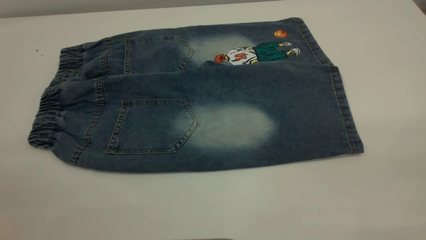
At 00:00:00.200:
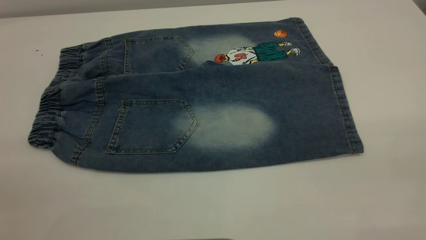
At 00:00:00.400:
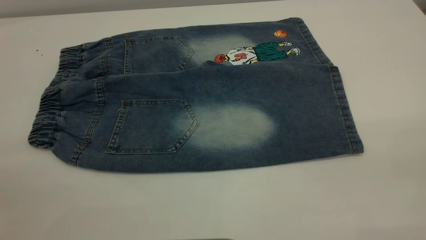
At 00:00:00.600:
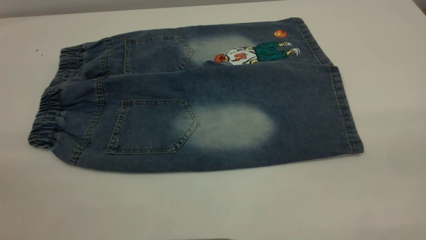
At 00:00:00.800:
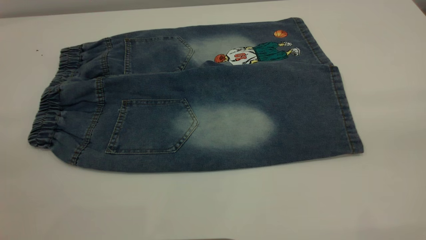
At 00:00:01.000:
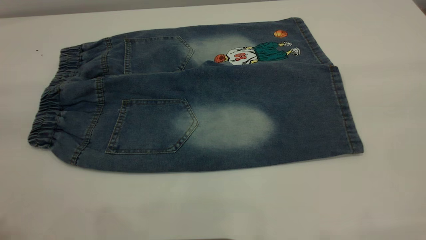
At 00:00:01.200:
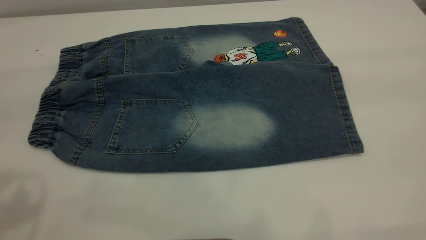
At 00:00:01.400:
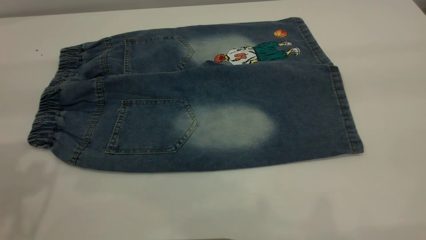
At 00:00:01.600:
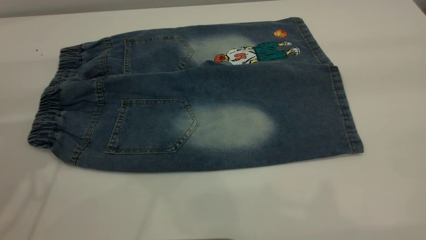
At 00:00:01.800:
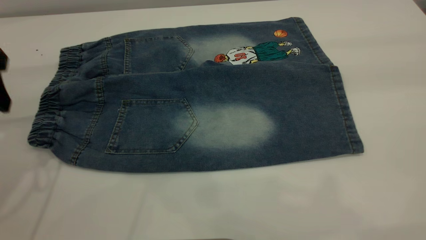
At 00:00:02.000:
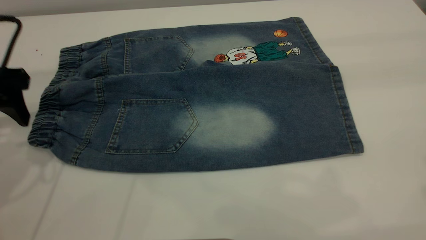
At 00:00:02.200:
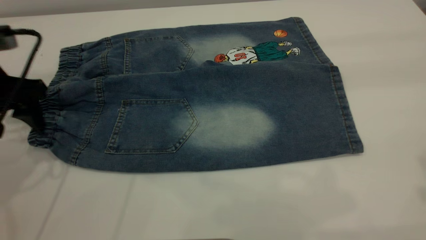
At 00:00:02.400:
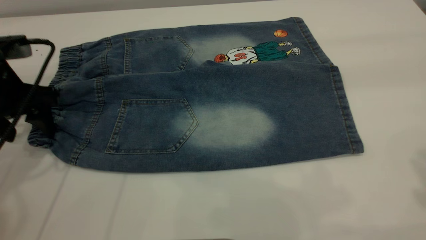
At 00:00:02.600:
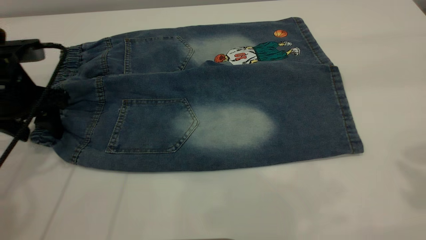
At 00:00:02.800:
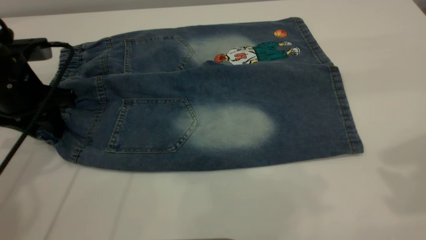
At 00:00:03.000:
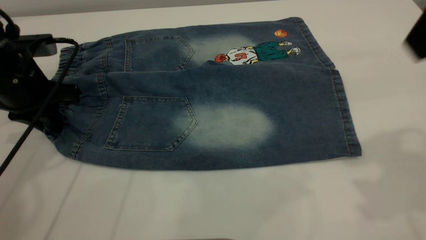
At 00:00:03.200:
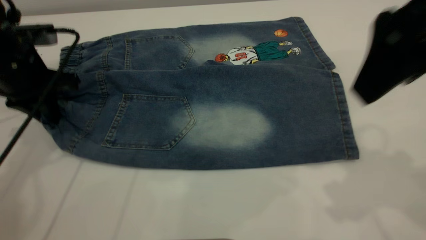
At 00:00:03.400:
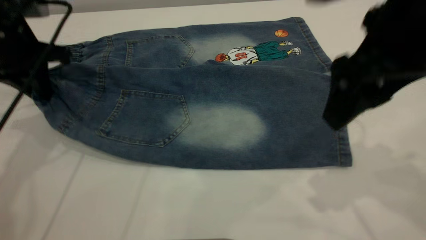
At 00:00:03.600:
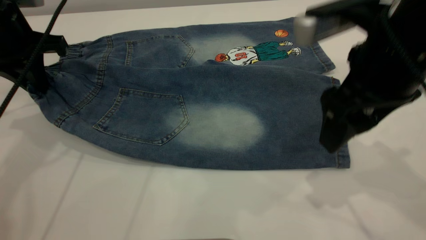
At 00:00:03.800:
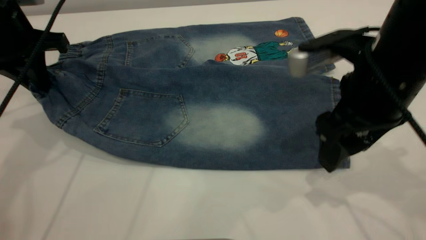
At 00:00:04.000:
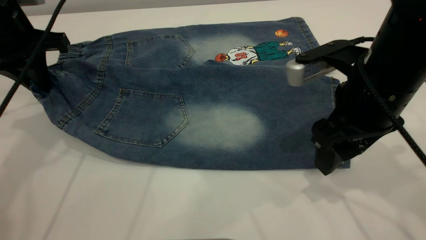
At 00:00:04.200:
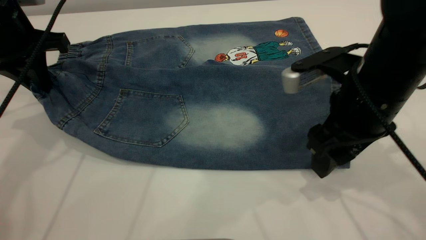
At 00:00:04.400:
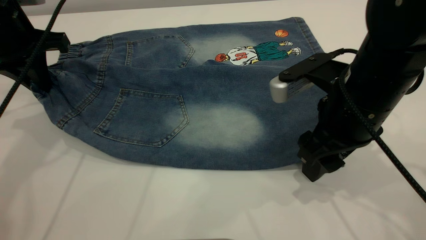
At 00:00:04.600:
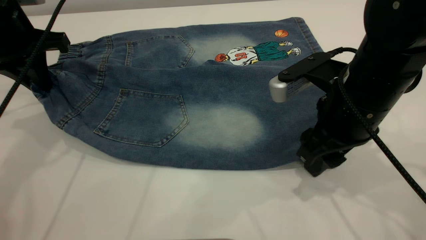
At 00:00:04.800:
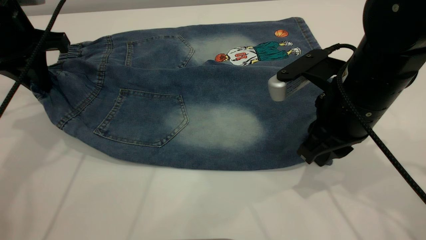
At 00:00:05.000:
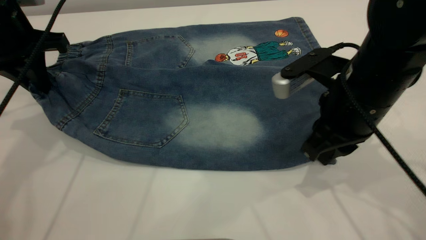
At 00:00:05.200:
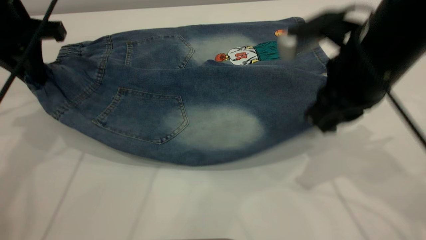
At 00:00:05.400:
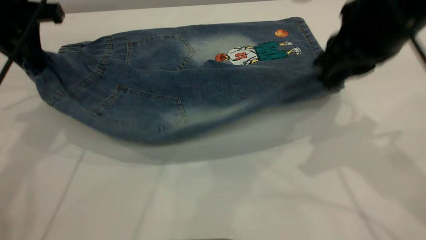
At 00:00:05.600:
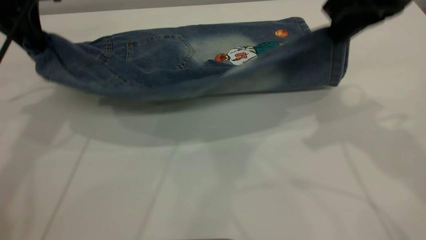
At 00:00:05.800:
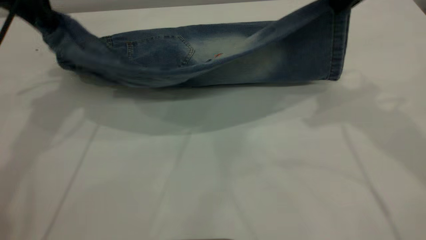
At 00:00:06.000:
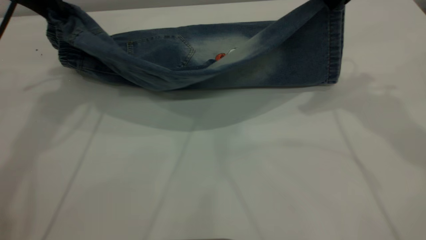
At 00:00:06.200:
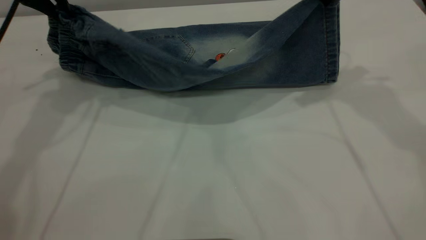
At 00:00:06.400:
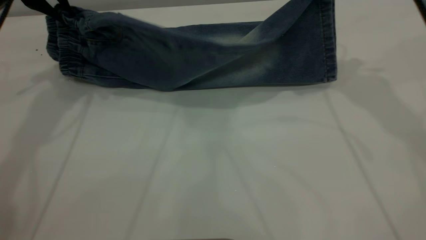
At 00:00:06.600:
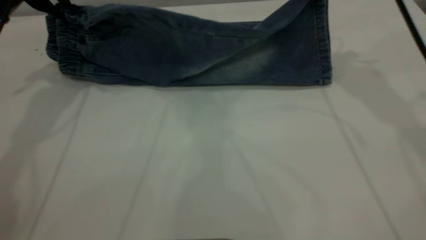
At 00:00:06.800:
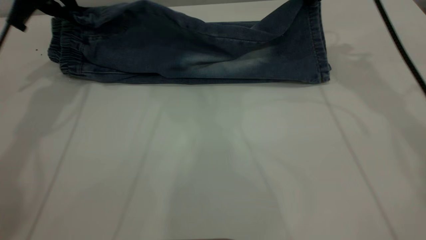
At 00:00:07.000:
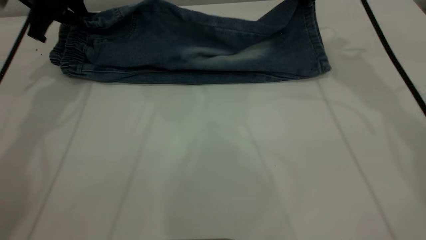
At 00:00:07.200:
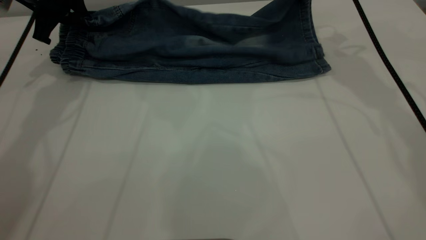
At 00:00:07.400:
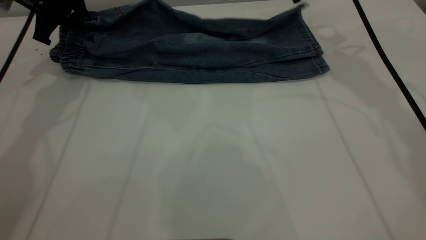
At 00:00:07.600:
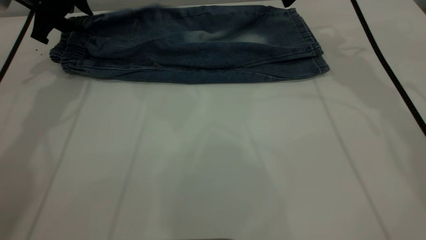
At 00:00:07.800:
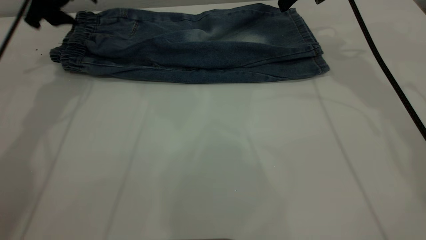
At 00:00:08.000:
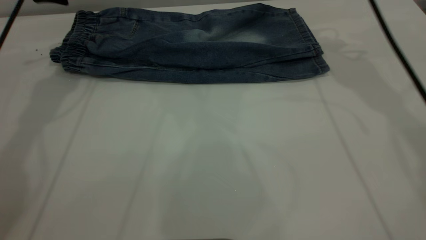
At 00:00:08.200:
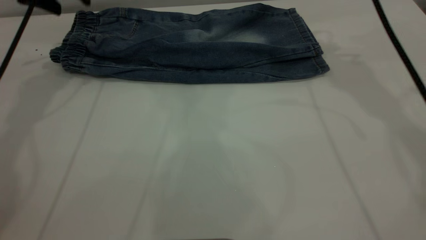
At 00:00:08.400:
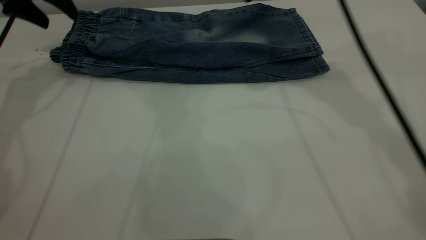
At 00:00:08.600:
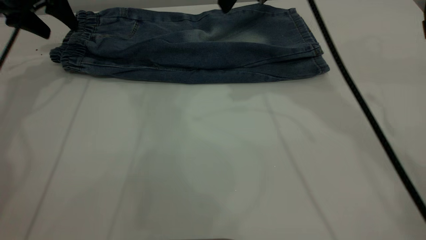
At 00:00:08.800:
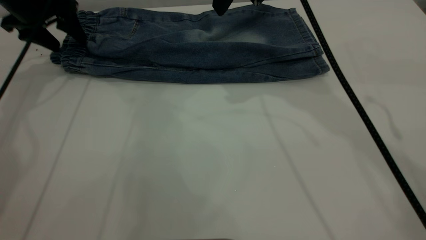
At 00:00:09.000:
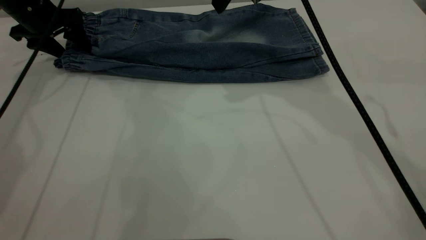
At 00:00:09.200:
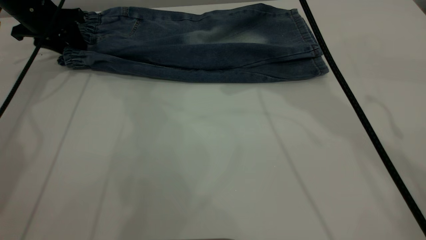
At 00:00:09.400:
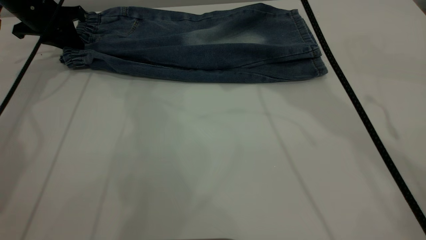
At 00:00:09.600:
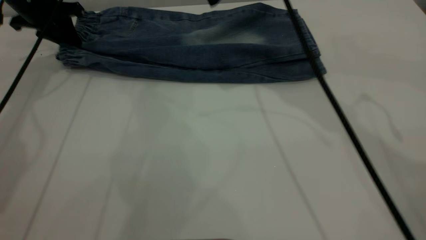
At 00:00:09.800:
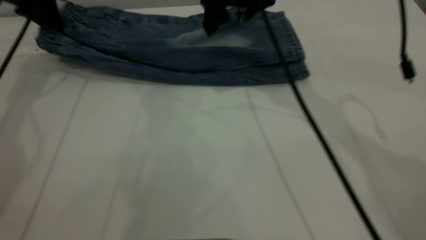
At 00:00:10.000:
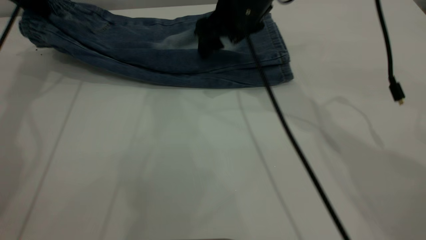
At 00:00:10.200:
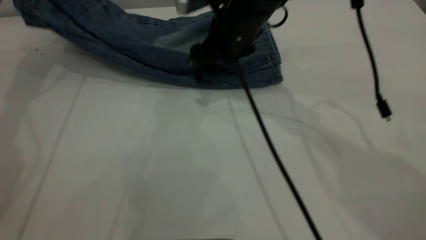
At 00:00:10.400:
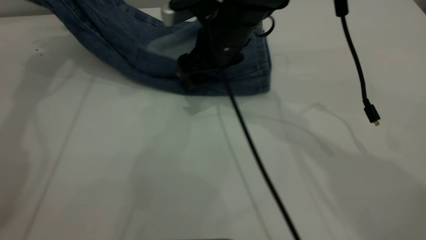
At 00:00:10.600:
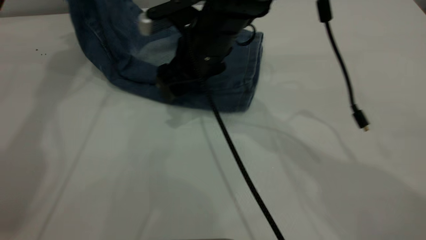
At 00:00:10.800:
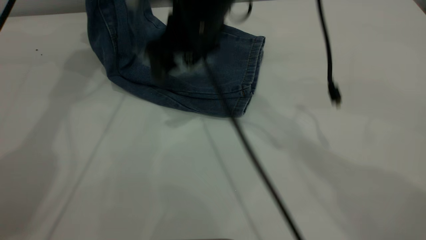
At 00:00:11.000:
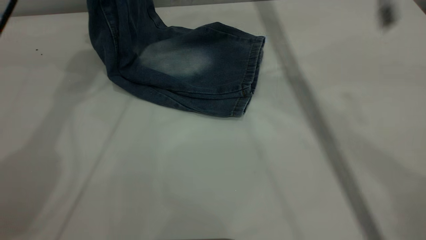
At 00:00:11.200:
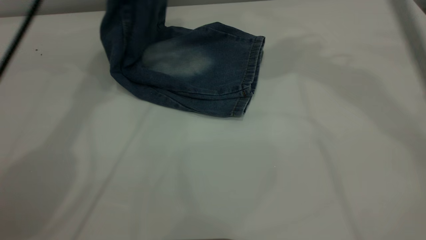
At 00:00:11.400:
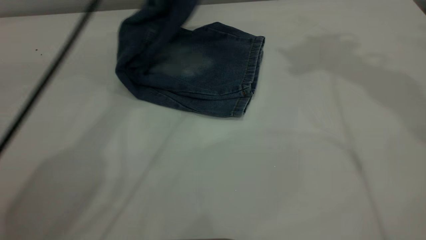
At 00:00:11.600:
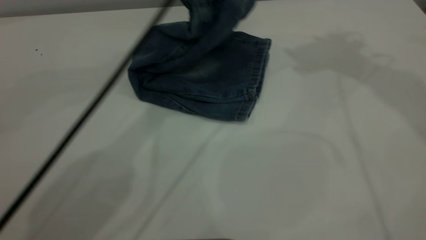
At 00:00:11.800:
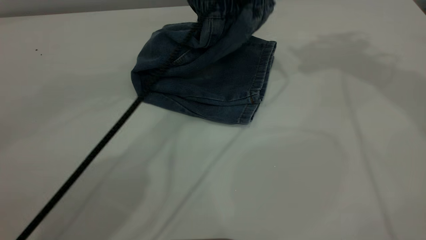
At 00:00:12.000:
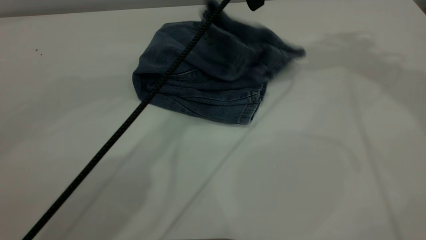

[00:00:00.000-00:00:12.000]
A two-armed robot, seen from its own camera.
Step, 00:00:00.000 to 00:00:08.000: Fold the bottom of the pants upward.
00:00:01.600 to 00:00:03.000: The left gripper travels downward and forward by approximately 15 cm, and closes up. Meanwhile the right gripper shifts some 15 cm downward, to the left and forward.
00:00:03.000 to 00:00:04.400: The right gripper travels downward by approximately 20 cm, while the left gripper is displaced upward by approximately 5 cm.
00:00:04.400 to 00:00:06.000: The right gripper travels upward and forward by roughly 20 cm, and closes up; the left gripper is displaced upward and forward by some 10 cm.
00:00:06.000 to 00:00:07.600: The right gripper is displaced forward and downward by some 15 cm, and opens. Meanwhile the left gripper is displaced downward and forward by approximately 10 cm, and opens its fingers.
00:00:07.600 to 00:00:09.000: The left gripper shifts approximately 5 cm to the left. Meanwhile the right gripper heads to the left, backward and upward, covering approximately 15 cm.
00:00:09.000 to 00:00:10.400: The left gripper goes some 15 cm upward, and closes. Meanwhile the right gripper shifts roughly 15 cm downward and to the left.
00:00:10.400 to 00:00:12.000: The left gripper heads to the right, covering roughly 30 cm, and opens its fingers, while the right gripper moves upward and to the right, approximately 35 cm.

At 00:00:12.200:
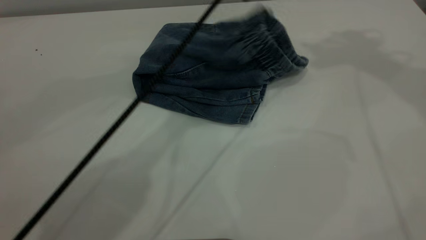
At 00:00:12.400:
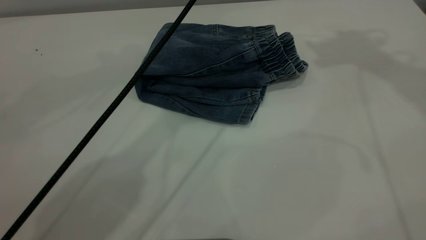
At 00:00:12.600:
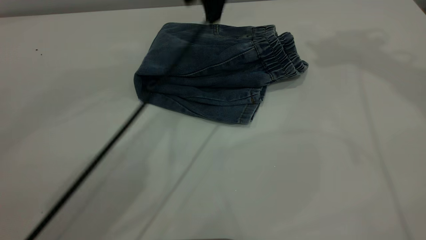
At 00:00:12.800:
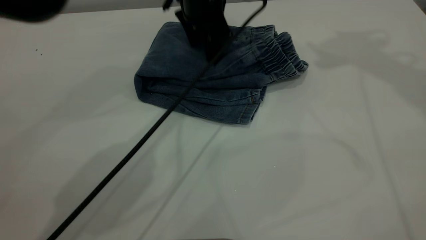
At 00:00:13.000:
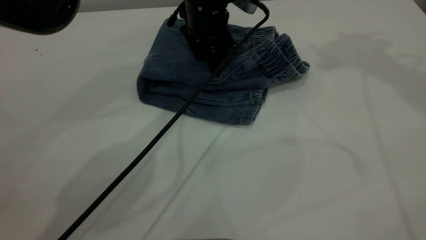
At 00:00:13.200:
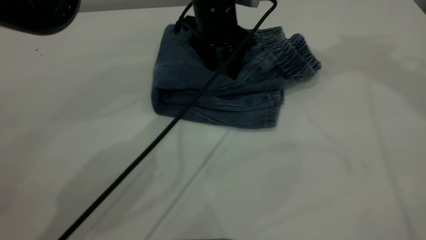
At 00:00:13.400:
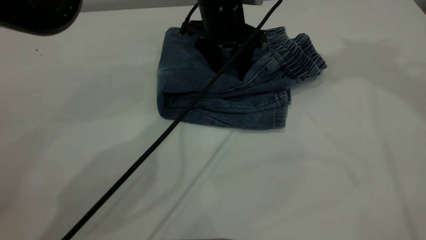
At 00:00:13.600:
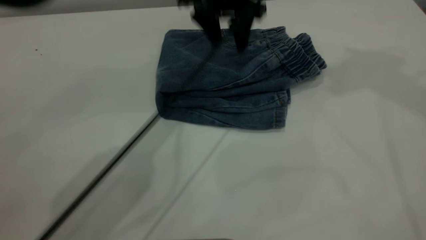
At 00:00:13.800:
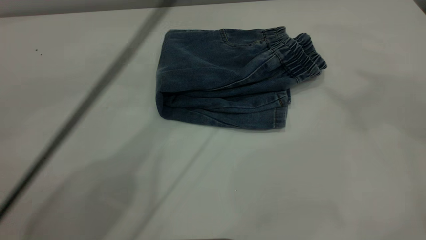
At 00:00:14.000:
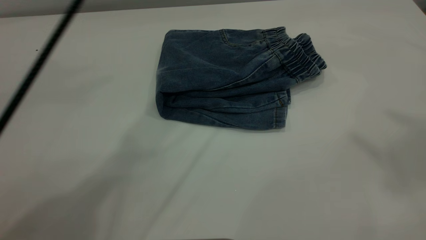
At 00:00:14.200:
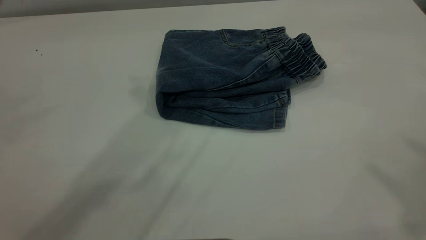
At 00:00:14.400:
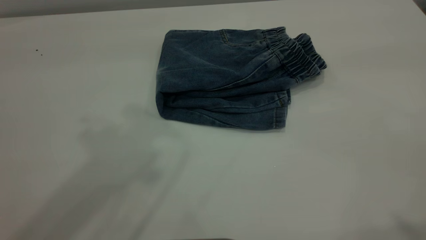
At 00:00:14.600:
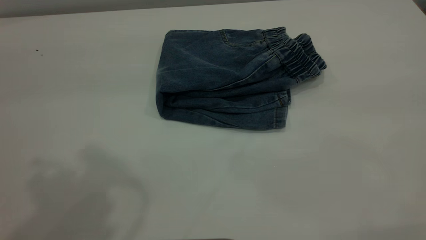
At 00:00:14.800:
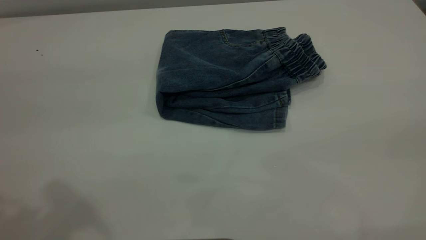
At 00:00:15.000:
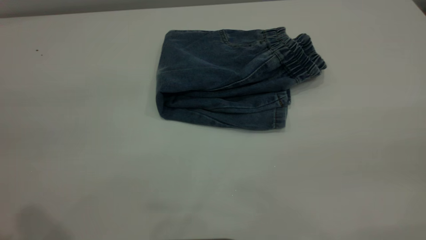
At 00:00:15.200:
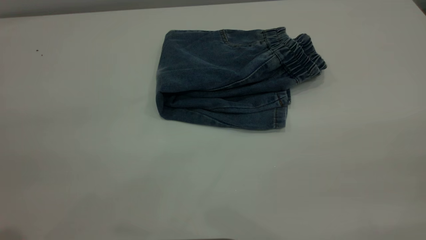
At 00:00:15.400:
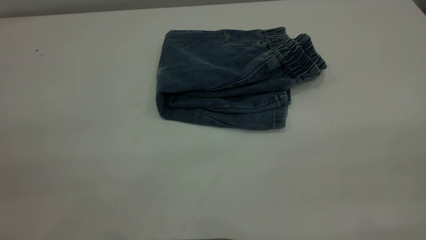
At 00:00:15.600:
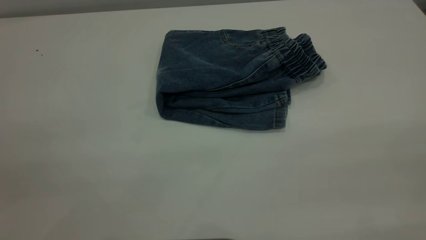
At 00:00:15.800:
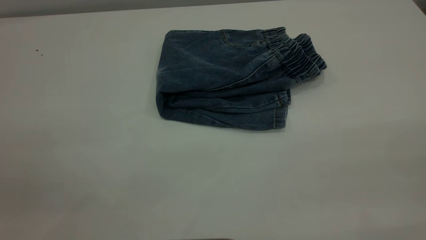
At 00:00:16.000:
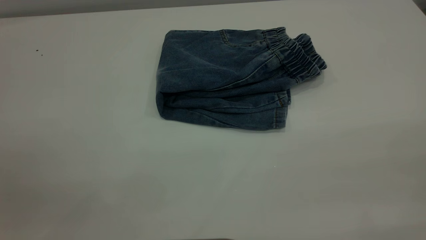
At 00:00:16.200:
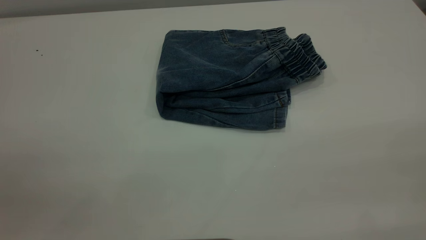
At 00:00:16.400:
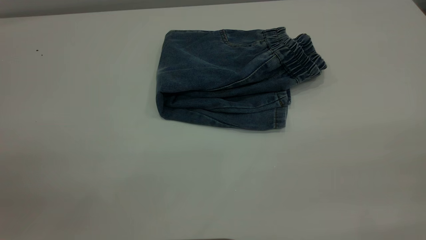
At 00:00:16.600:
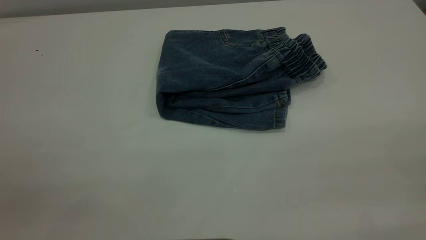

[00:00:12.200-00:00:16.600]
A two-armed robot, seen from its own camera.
00:00:12.200 to 00:00:13.600: The right gripper is displaced upward and backward by some 10 cm. Meanwhile the left gripper heads downward, covering some 5 cm.
00:00:13.600 to 00:00:15.200: The right gripper shifts about 40 cm backward and downward, while the left gripper is displaced backward and to the left by some 50 cm.
